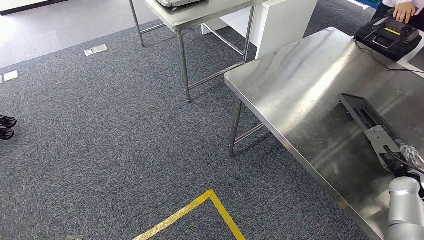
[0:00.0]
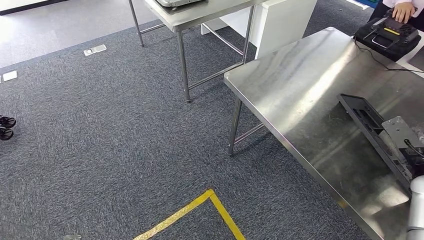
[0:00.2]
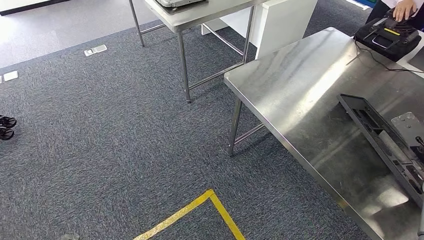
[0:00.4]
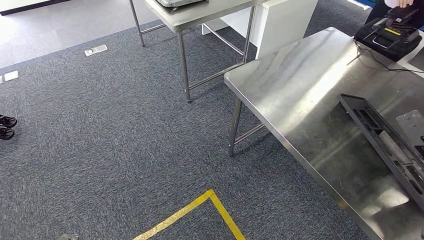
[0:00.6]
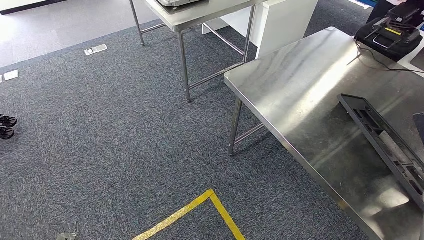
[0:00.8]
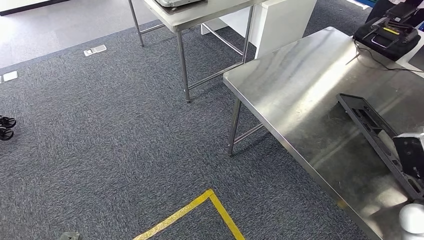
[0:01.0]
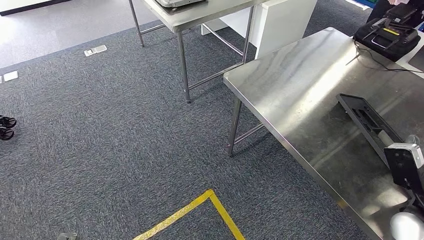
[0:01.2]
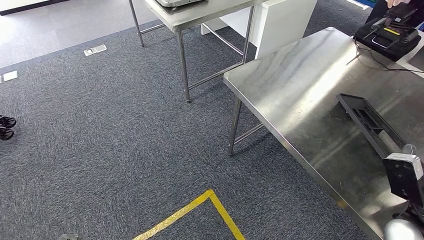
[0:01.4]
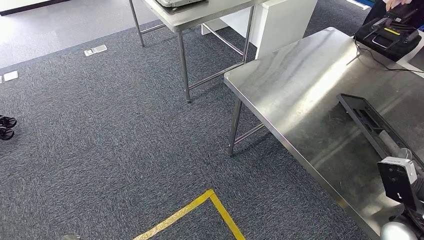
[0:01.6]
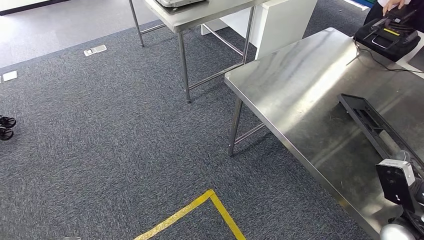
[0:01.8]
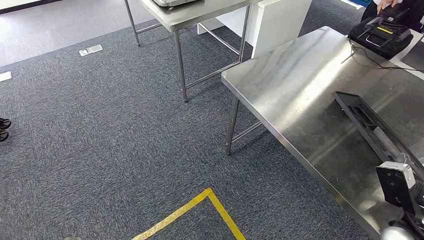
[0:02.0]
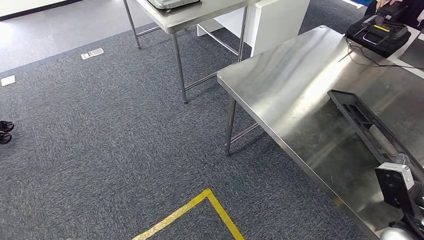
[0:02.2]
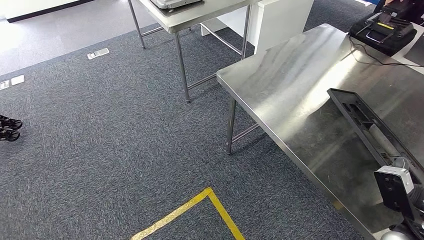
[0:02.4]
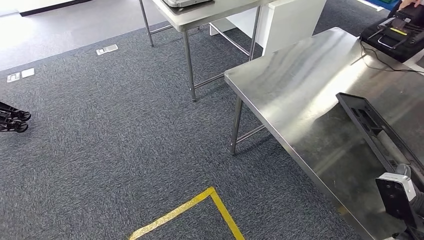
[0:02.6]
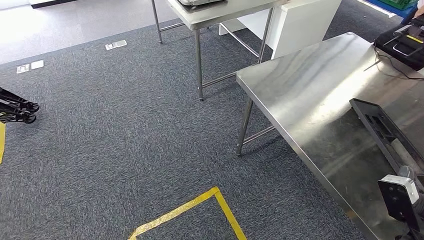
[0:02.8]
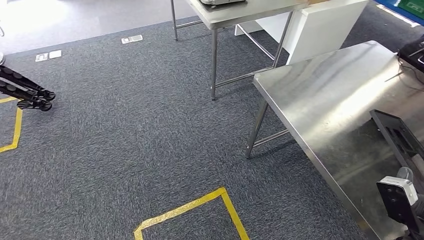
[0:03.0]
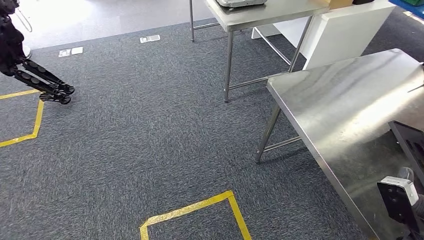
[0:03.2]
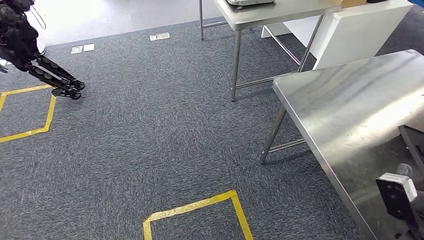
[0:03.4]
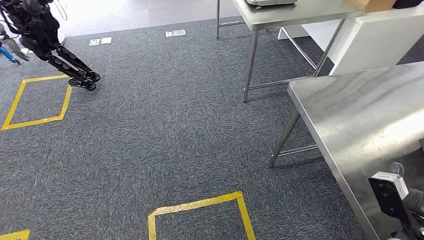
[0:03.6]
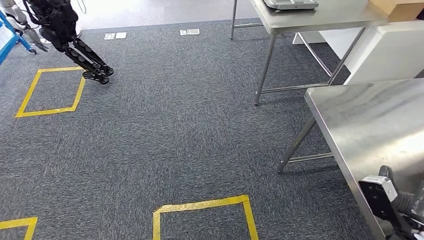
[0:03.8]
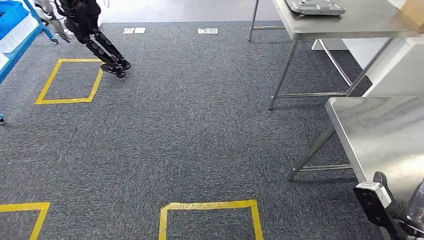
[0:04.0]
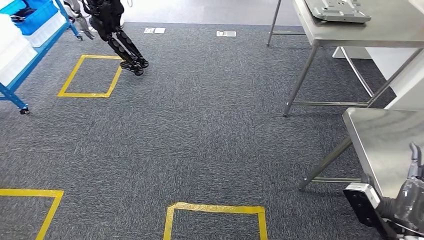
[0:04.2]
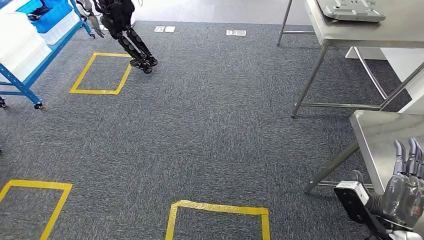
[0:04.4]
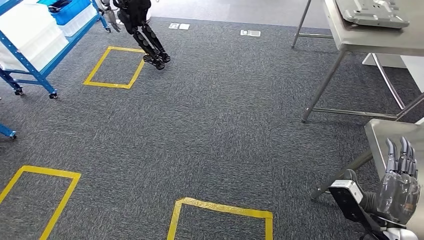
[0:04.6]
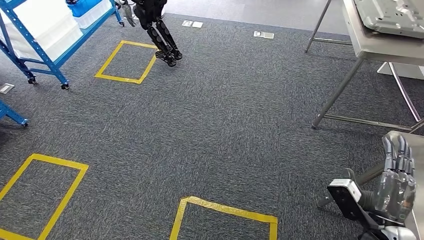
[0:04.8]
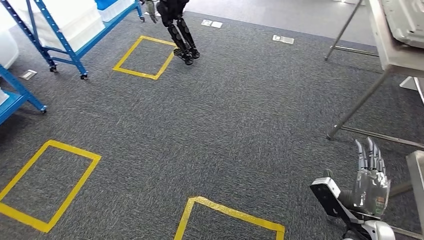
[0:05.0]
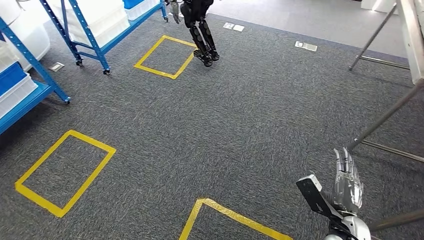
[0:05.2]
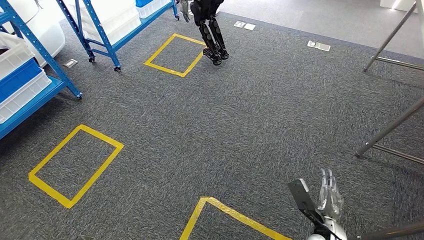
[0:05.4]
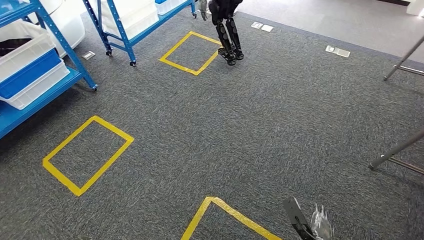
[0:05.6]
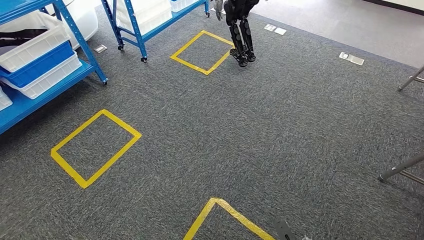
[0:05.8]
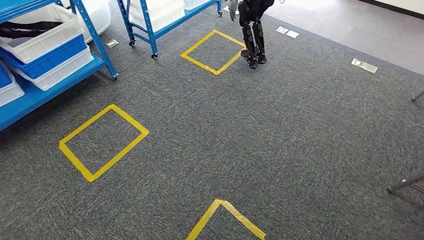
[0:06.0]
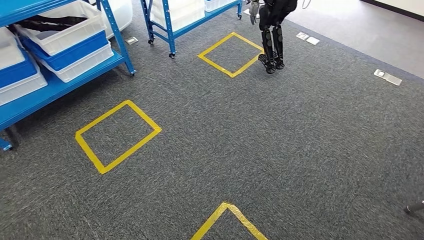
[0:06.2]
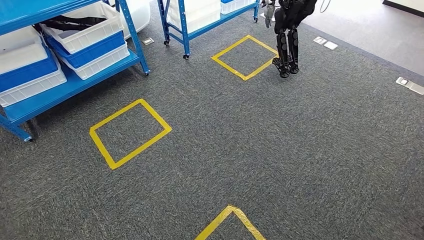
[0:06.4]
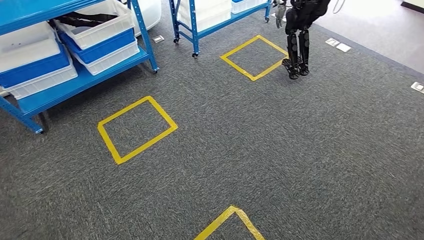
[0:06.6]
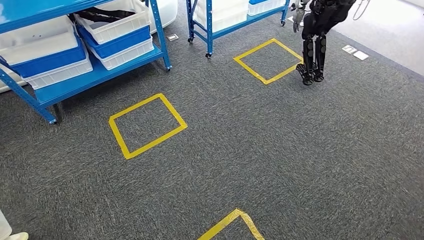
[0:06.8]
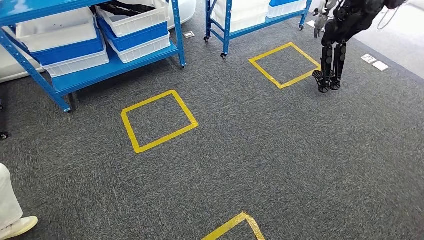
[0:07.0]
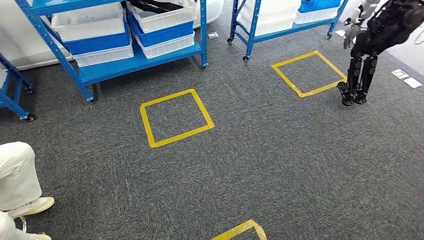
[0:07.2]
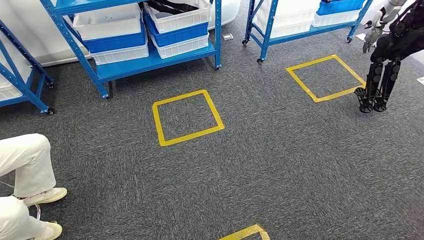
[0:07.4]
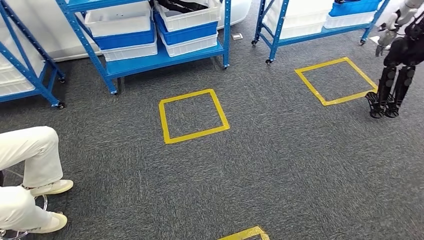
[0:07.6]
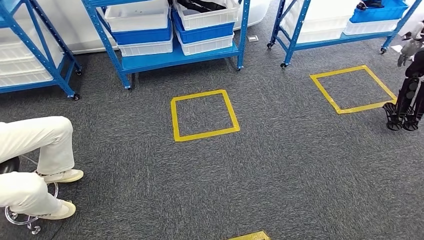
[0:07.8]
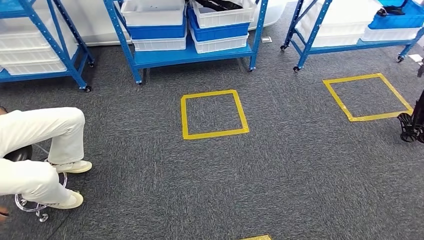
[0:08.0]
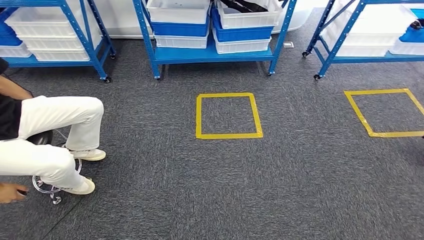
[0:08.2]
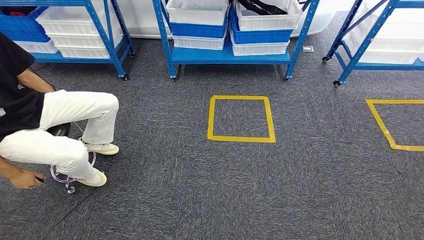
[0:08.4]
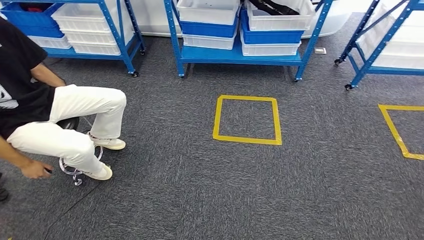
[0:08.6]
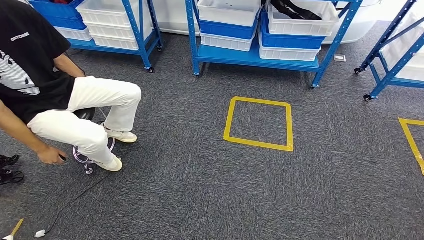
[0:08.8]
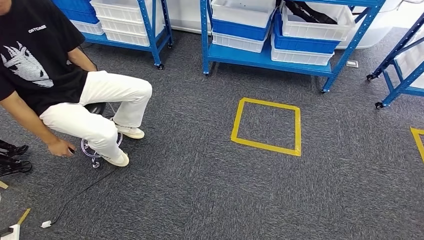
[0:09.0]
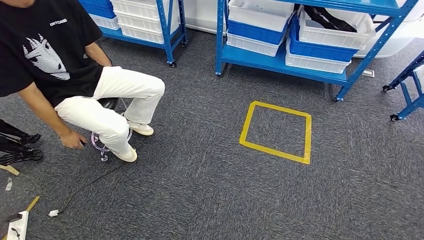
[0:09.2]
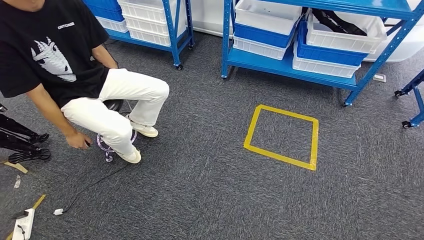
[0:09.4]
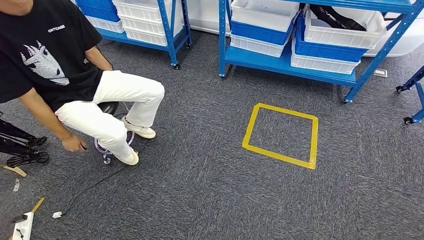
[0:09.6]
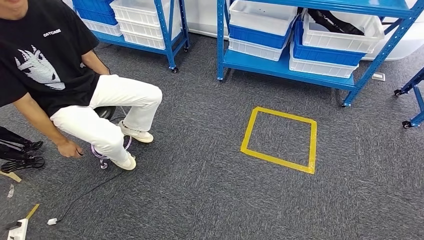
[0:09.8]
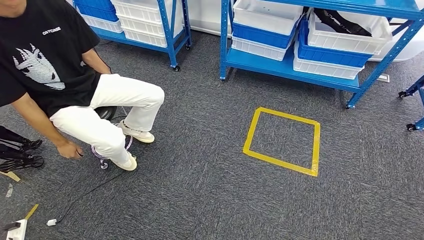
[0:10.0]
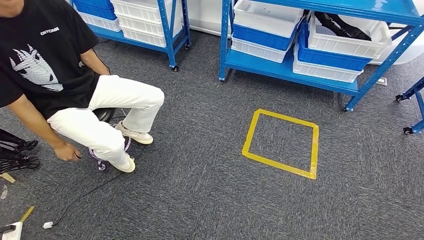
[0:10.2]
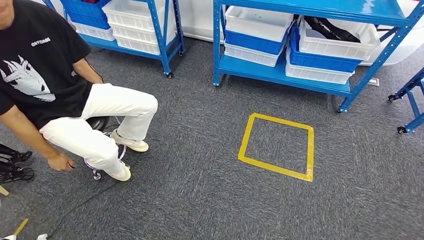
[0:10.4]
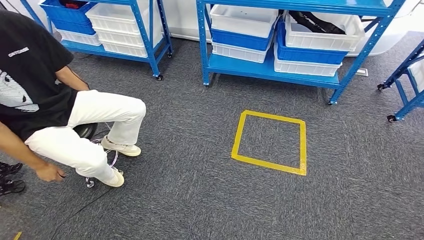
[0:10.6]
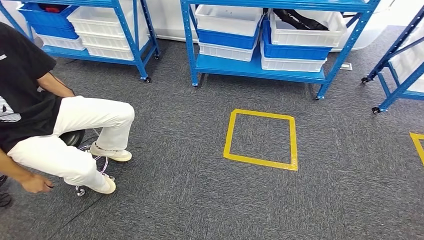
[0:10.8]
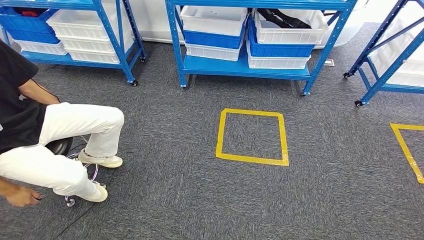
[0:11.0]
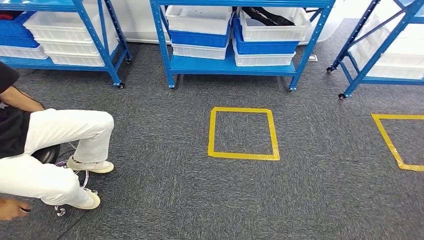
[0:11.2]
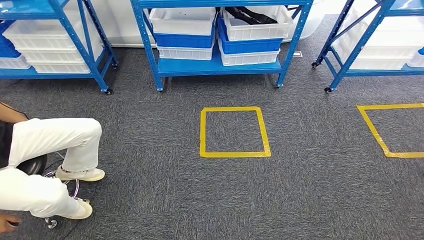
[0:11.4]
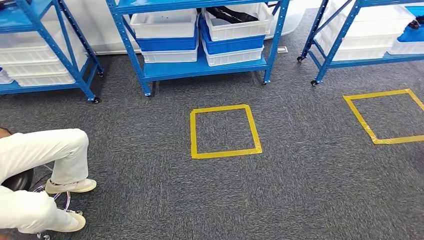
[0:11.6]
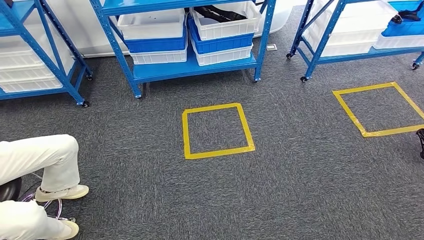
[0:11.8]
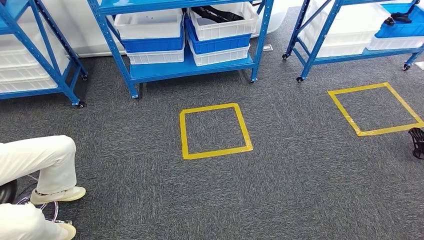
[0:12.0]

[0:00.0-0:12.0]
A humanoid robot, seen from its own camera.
Step, 0:00.0 to 0:05.0: Insert the large material into the corresponding slot on the workbench.
0:00.0 to 0:01.6: The right hand is displaced to the left and backward by some 15 cm.

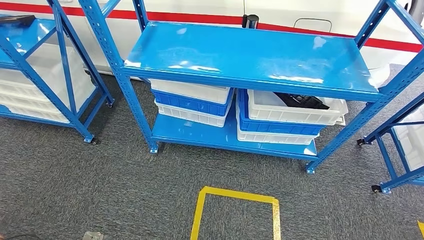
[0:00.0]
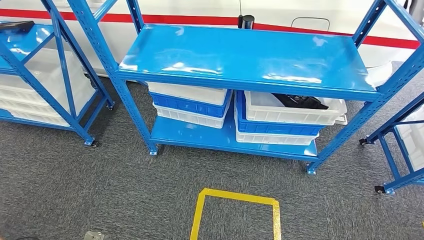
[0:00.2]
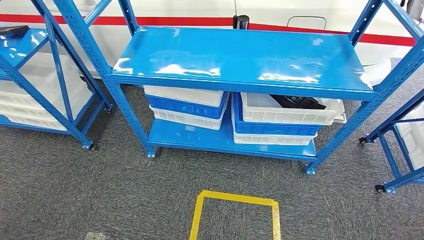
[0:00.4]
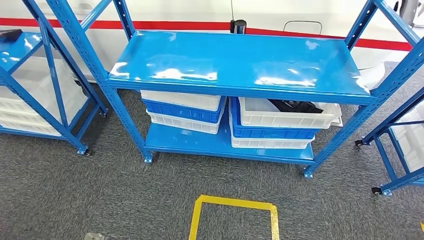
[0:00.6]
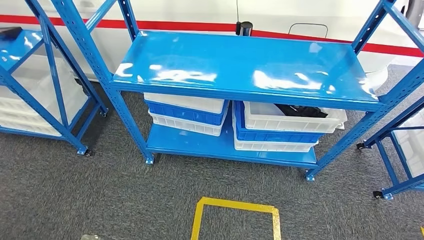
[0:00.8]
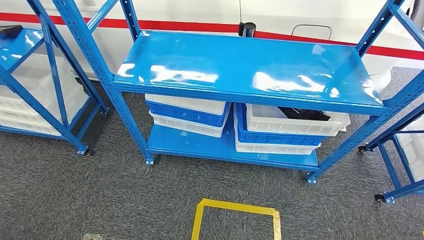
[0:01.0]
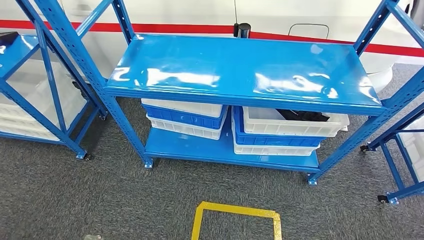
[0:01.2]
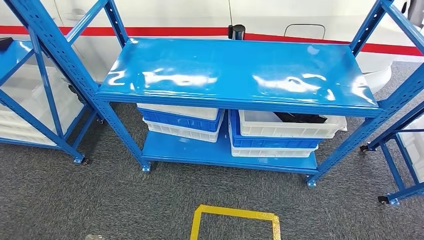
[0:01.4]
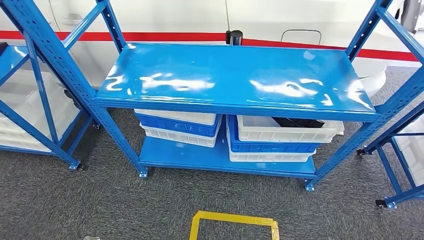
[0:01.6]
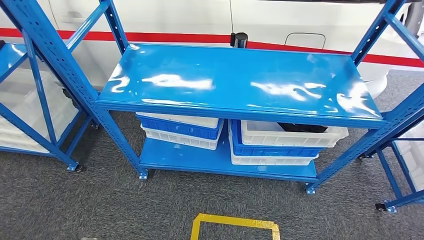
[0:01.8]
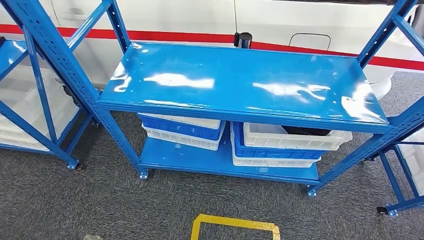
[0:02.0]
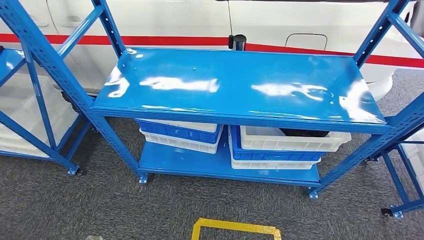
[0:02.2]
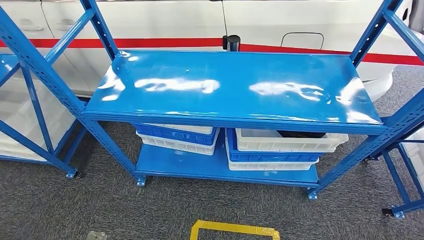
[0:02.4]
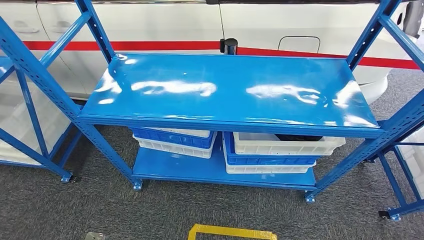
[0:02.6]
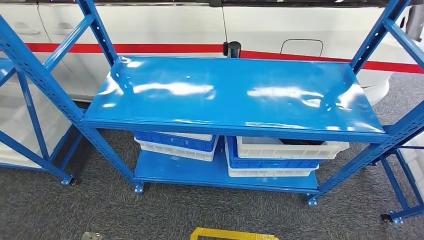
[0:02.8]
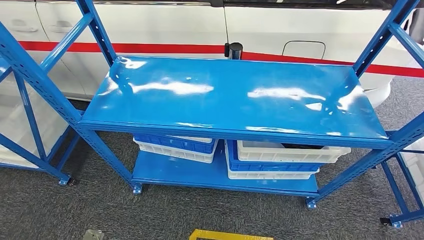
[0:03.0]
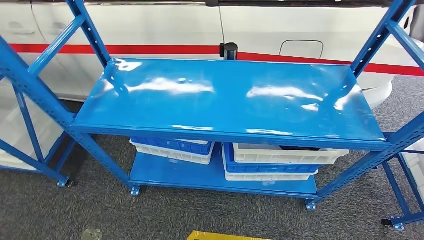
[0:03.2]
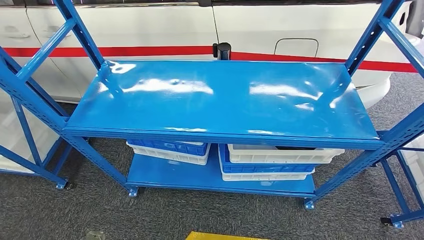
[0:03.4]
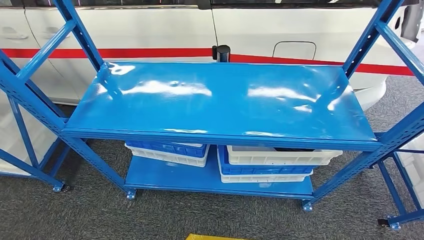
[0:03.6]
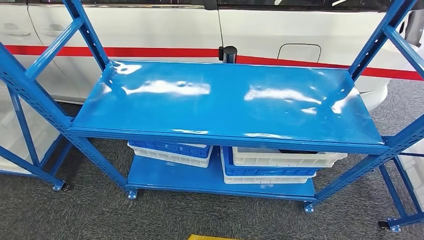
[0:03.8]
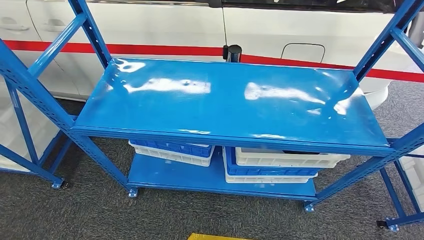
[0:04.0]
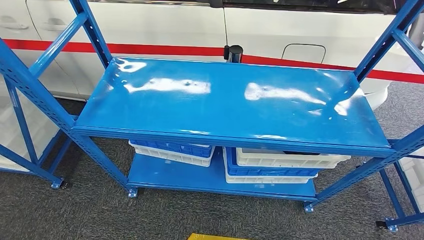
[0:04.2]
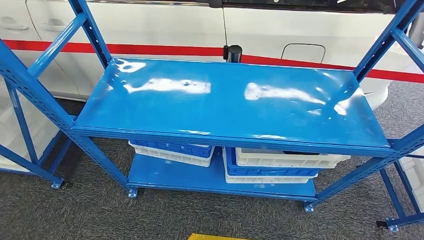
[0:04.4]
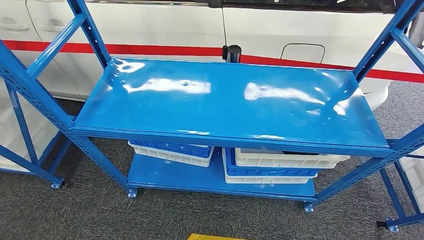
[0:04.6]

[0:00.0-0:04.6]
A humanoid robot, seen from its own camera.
Step, 0:00.0 to 0:04.6: Return to the initial position at the shelf.
